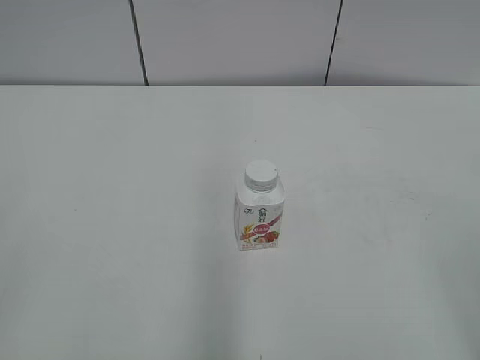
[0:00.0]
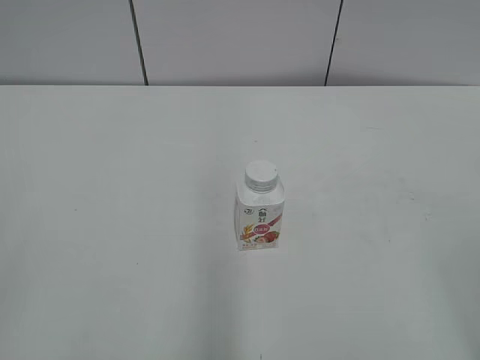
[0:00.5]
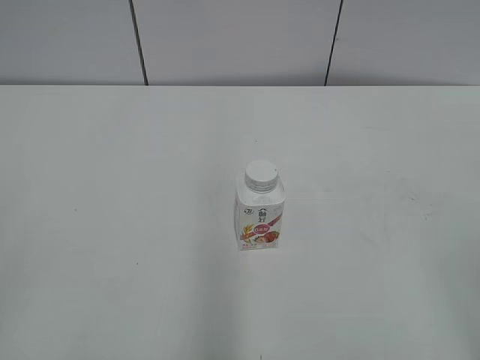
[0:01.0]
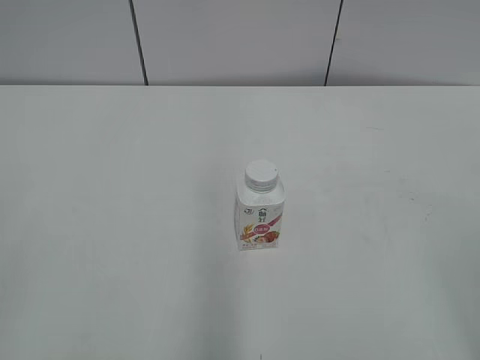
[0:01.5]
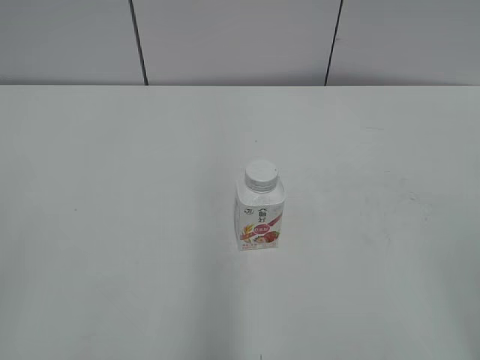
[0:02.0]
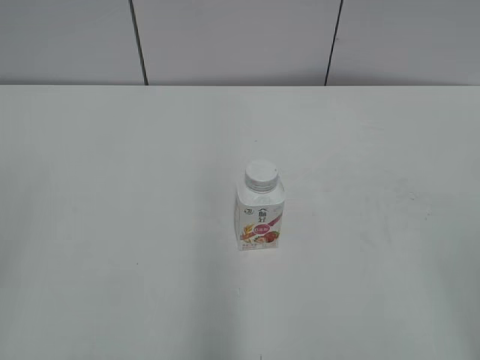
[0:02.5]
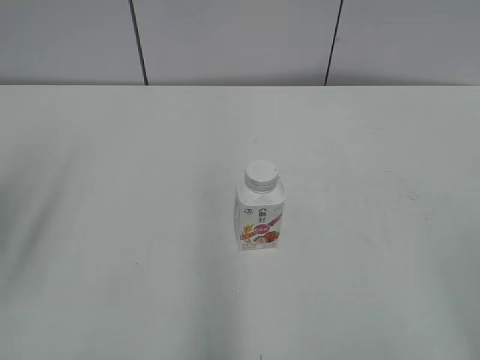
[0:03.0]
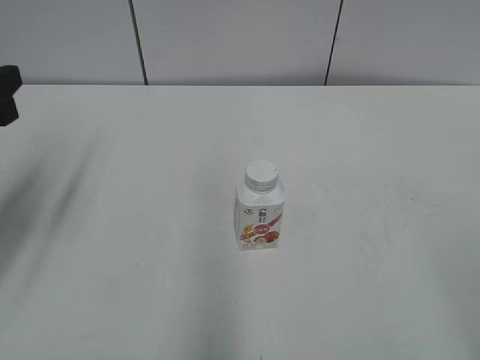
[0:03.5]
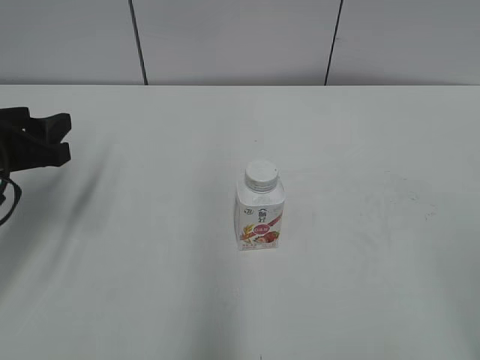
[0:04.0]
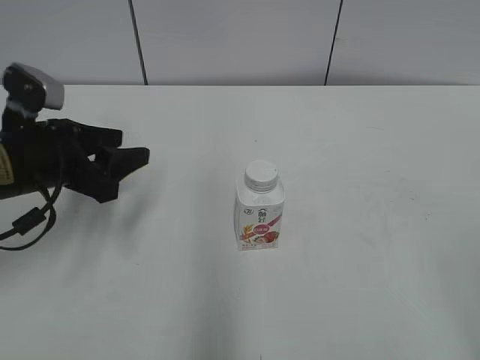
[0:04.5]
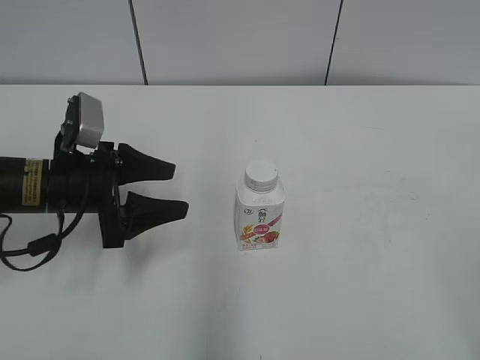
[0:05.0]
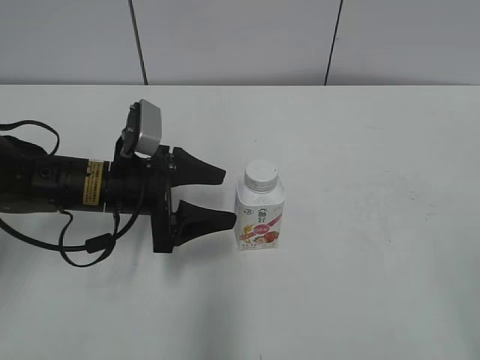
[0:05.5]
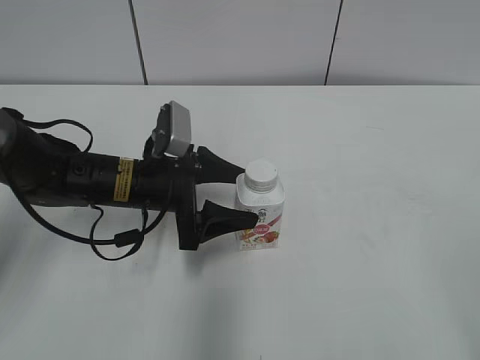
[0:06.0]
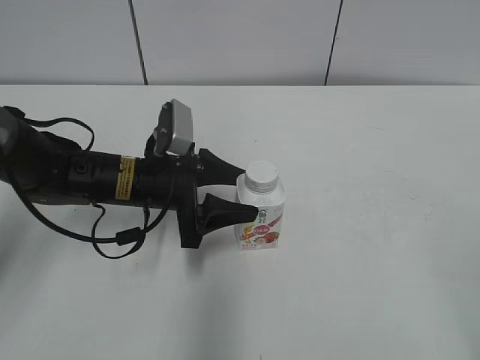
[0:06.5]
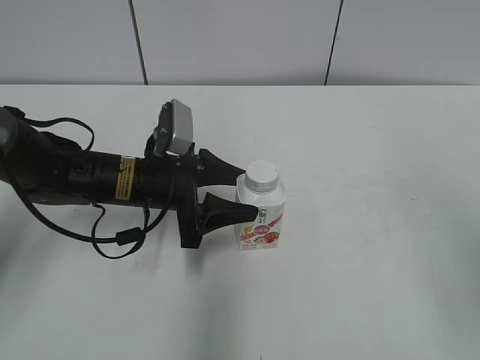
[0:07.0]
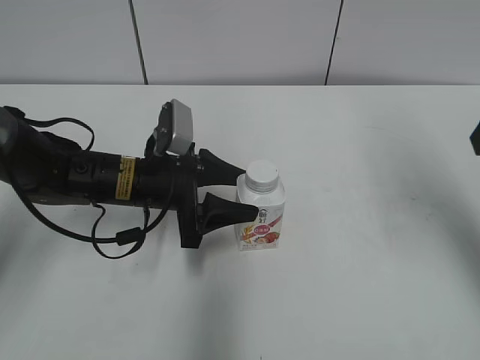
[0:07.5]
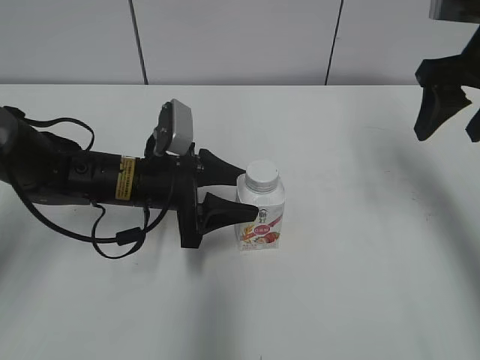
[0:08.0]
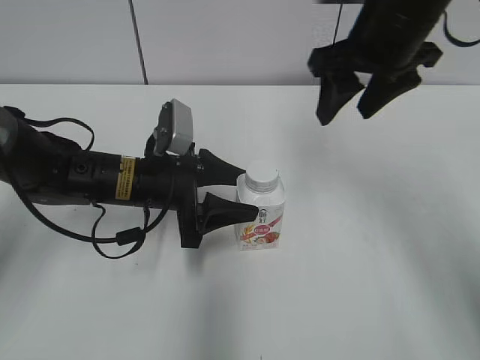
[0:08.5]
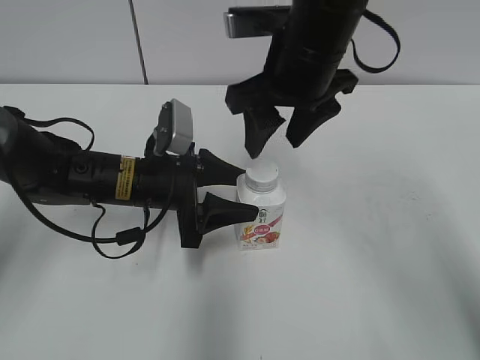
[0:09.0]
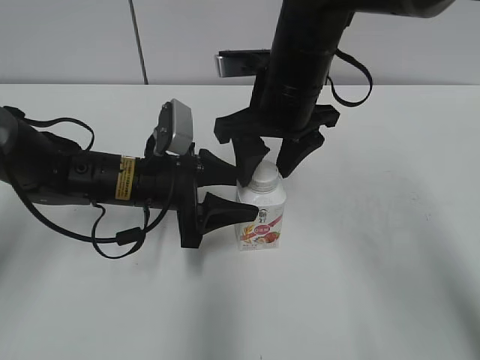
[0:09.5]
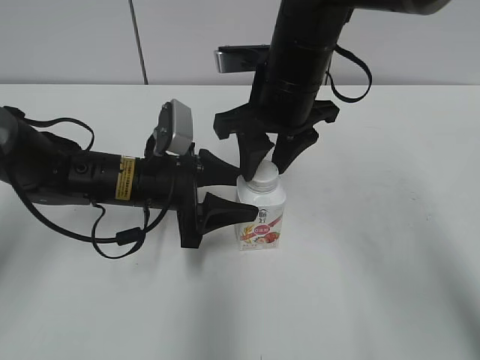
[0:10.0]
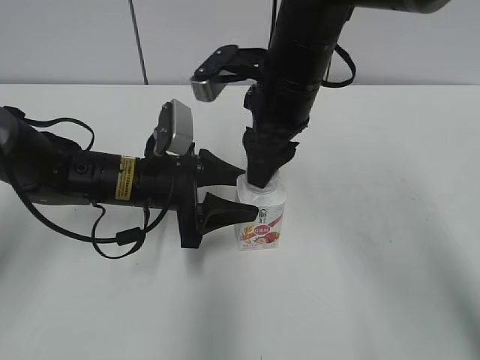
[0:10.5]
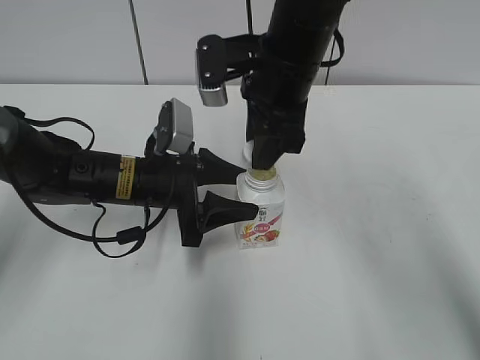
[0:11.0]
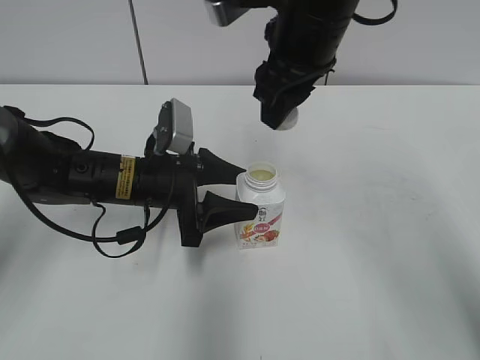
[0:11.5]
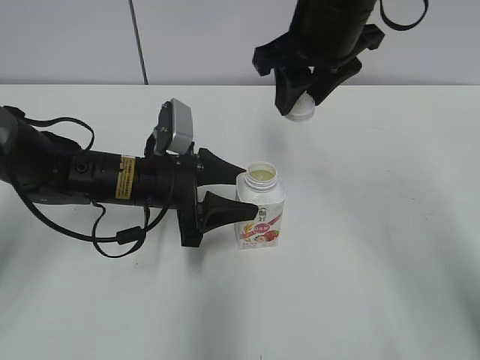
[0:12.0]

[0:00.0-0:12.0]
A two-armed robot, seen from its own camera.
Step, 0:00.0 to 0:06.0: Grab the Yili Changqing with the left hand.
Step, 0:06.5 to 0:10.5: Twist the bottle cap with the right hand.
0:02.0 to 0:04.0: The left gripper moves forward and downward, roughly 30 cm.
0:04.0 to 0:06.0: The left gripper is displaced to the right and downward by roughly 15 cm, and opens.
0:06.0 to 0:08.0: The right gripper heads forward, covering some 35 cm. Meanwhile the left gripper closes.
0:08.0 to 0:10.0: The right gripper goes some 20 cm to the left, and closes up.
0:10.0 to 0:12.0: The right gripper is displaced upward by some 5 cm.

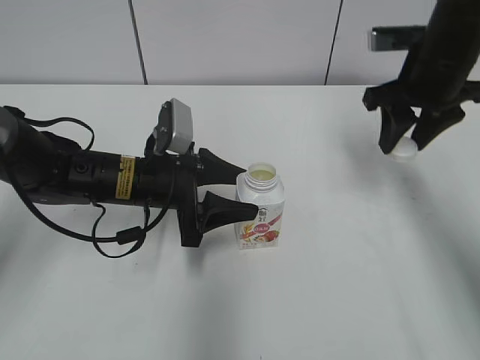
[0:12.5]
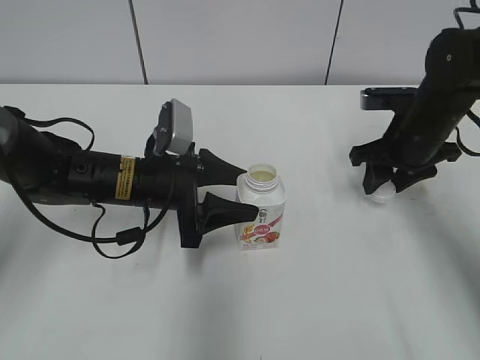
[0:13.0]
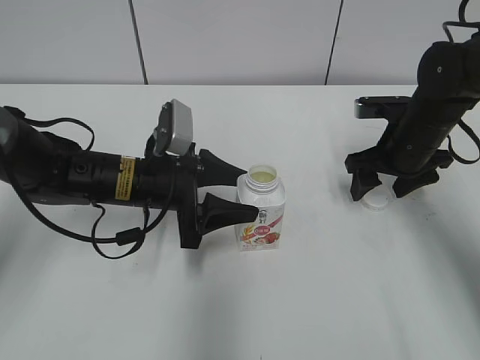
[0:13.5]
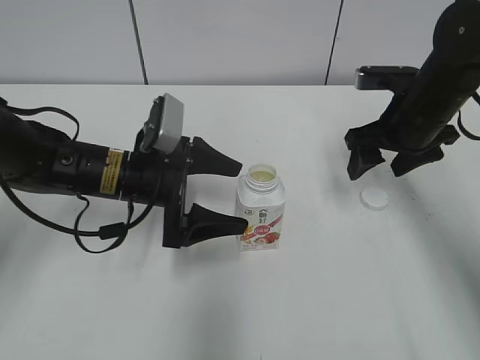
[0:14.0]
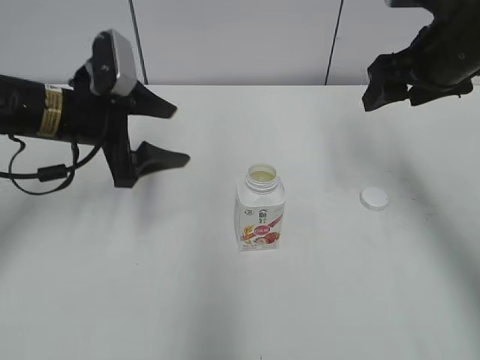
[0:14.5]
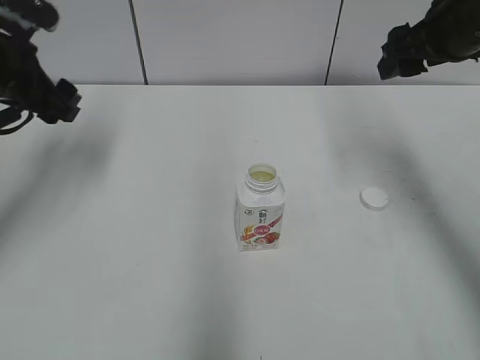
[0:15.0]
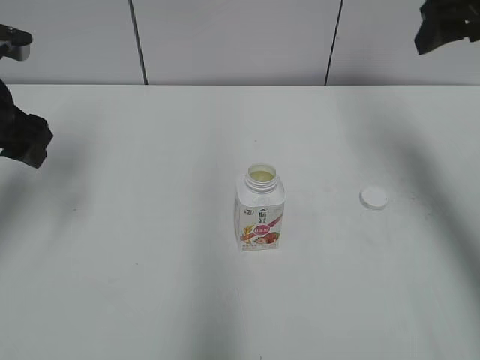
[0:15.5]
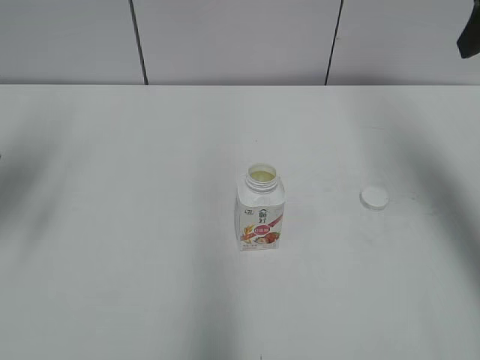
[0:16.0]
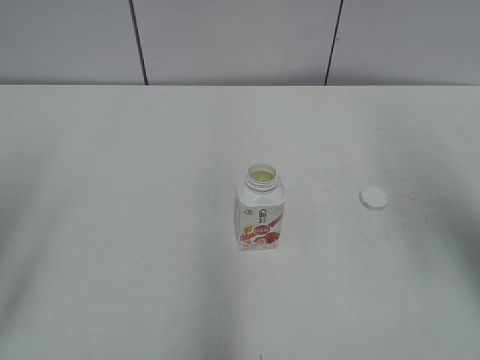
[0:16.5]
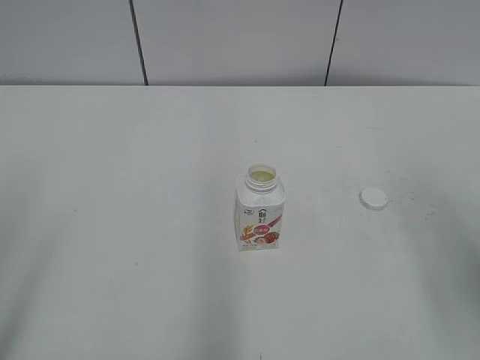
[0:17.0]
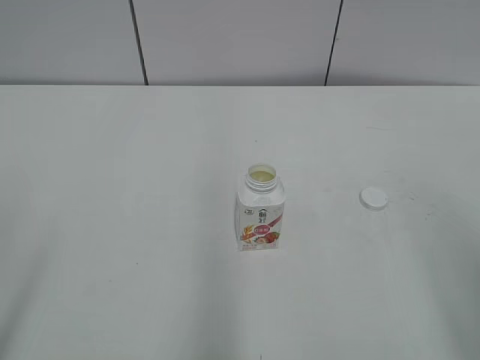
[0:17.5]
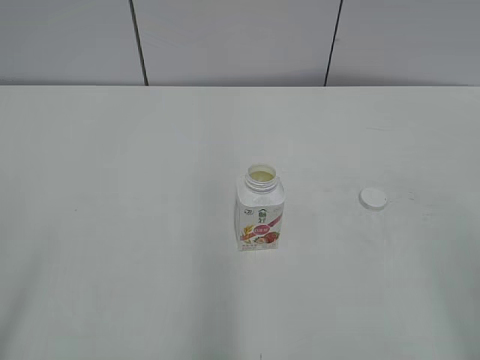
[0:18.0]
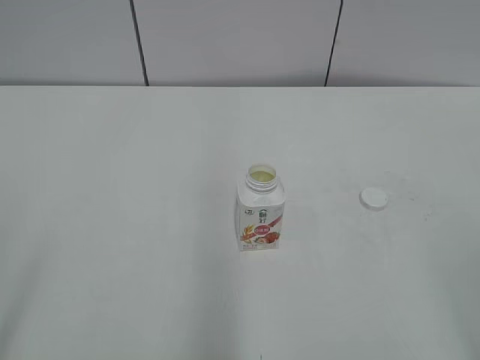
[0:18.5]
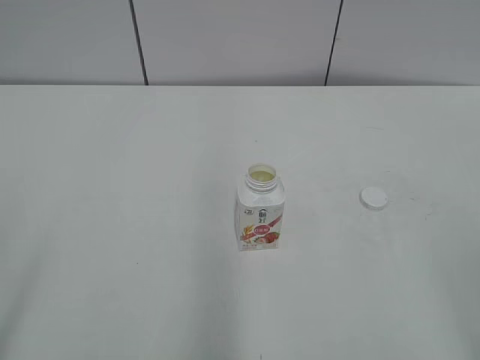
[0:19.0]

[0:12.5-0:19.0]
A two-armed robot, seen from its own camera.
0:12.5 to 0:14.5: The right gripper moves roughly 10 cm downward and comes back, and opens. The left gripper shifts about 10 cm upward and to the left, and opens.
0:14.5 to 0:17.0: The right gripper moves backward, some 25 cm, while the left gripper goes about 30 cm backward and to the left.

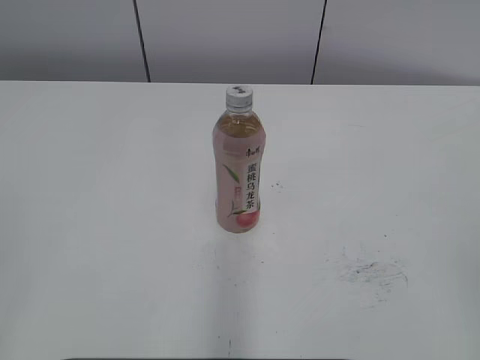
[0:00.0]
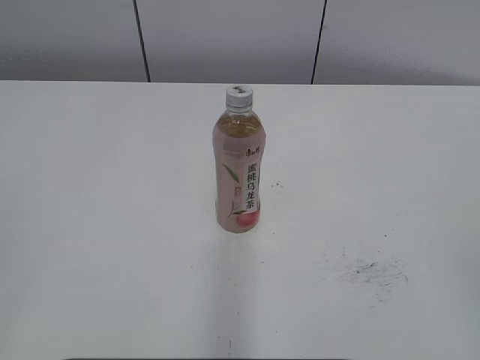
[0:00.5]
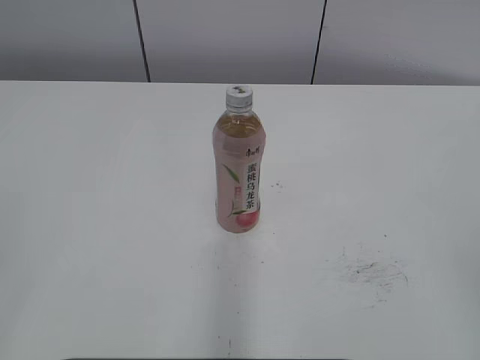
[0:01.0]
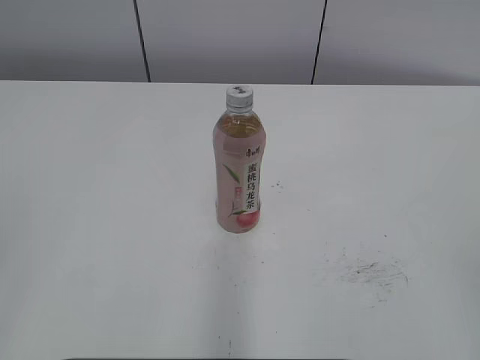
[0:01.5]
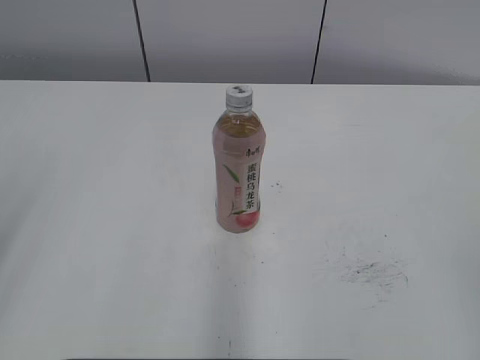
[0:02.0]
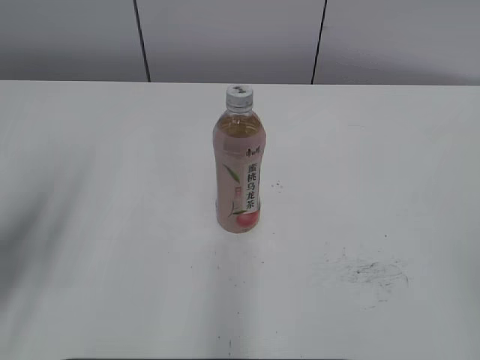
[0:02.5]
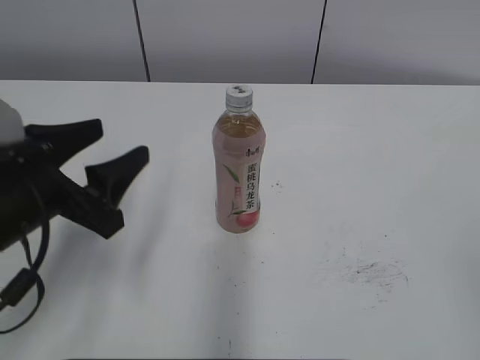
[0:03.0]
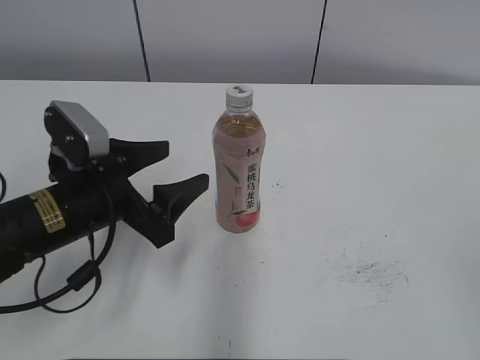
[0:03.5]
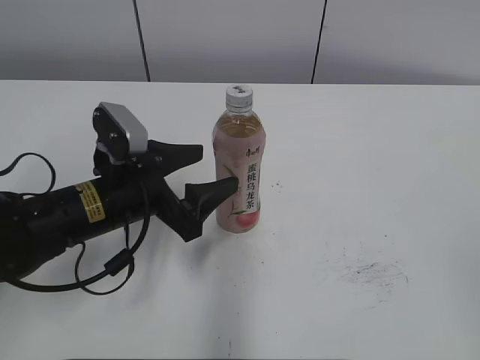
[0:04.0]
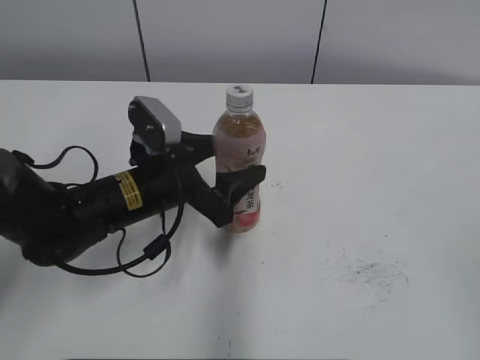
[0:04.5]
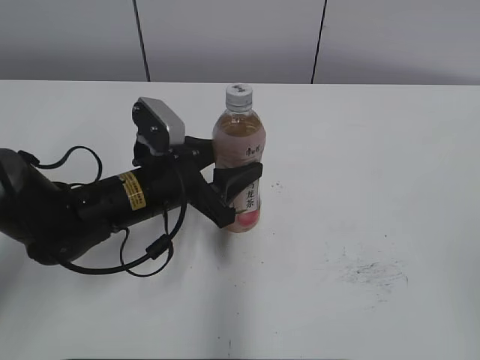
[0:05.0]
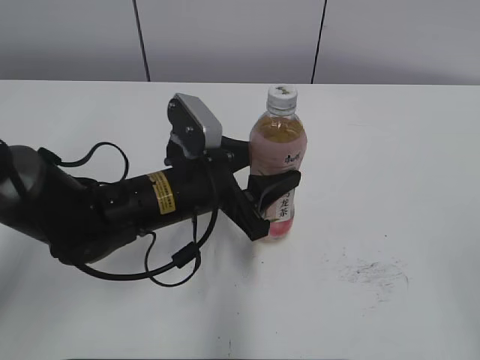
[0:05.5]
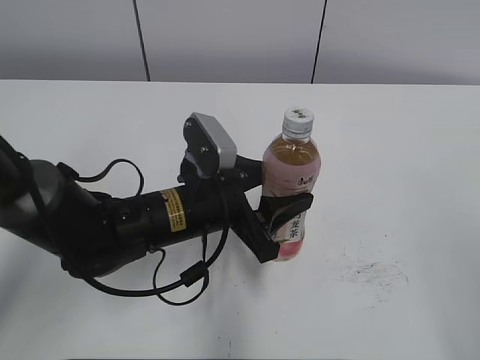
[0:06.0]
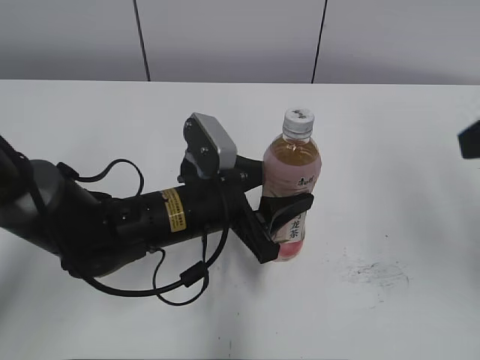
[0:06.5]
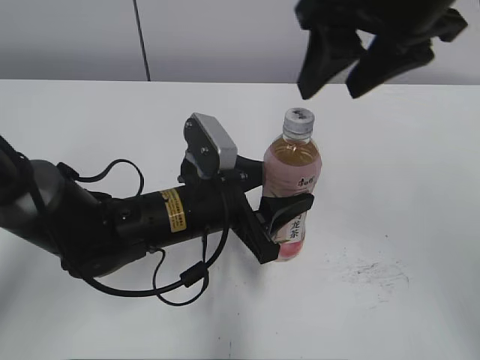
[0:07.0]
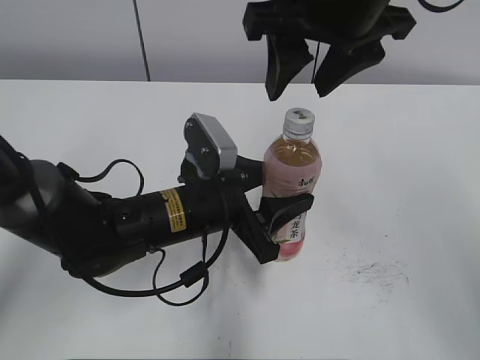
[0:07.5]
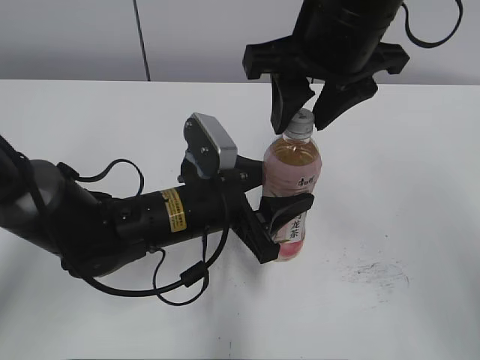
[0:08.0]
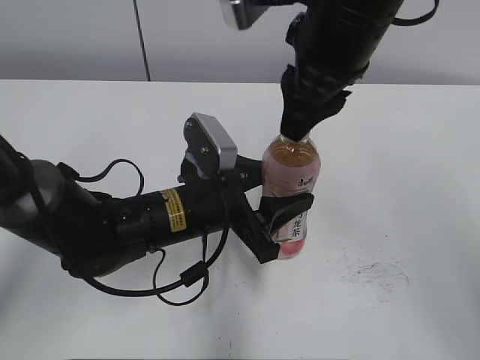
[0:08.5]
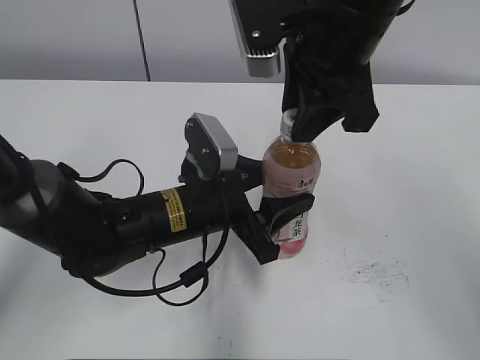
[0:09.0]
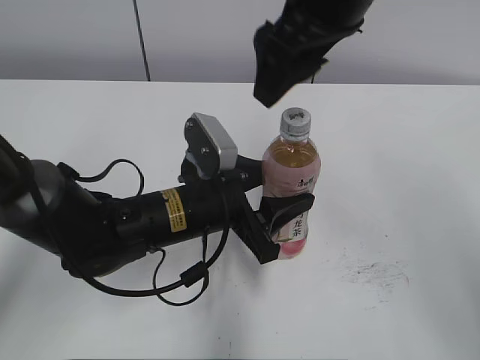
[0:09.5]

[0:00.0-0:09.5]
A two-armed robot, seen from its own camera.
Step, 0:00.0 to 0:05.0: Grab the Peach Oolong Tea with the left hand.
Step, 0:05.5 to 0:07.5: Move the Peach Oolong Tea from left to right.
0:02.0 to 0:04.0: The left gripper goes about 35 cm downward, forward and to the right, and opens its fingers.
0:04.0 to 0:05.5: The left gripper moves to the right, approximately 5 cm, and closes up.
0:05.5 to 0:07.5: The right gripper travels forward and to the left by some 40 cm.
0:07.5 to 0:09.5: The right gripper opens its fingers.
